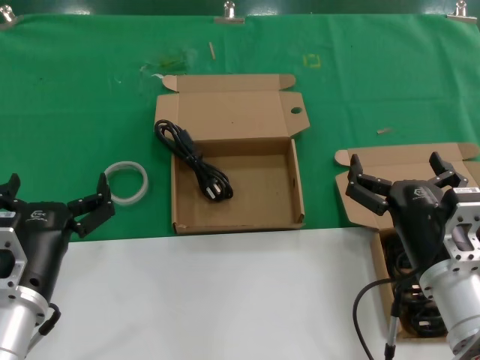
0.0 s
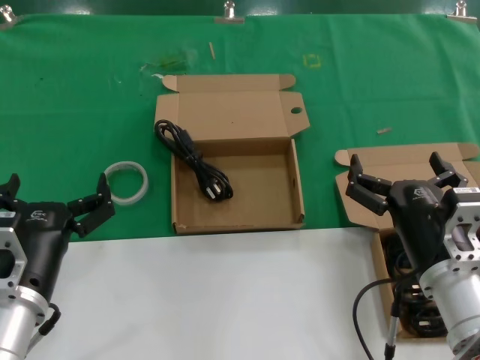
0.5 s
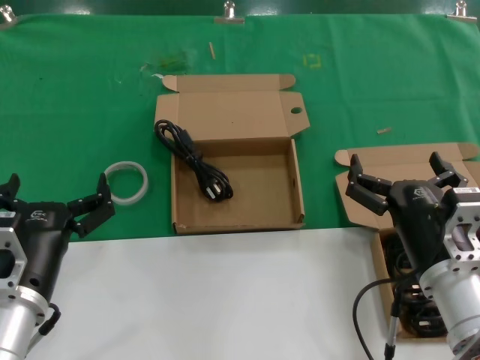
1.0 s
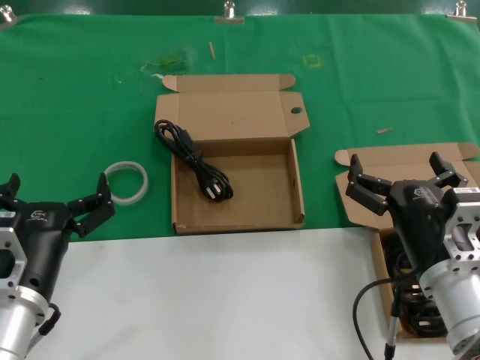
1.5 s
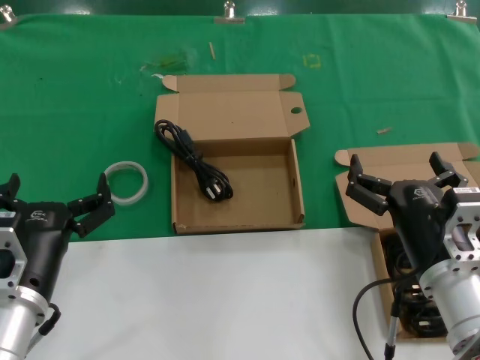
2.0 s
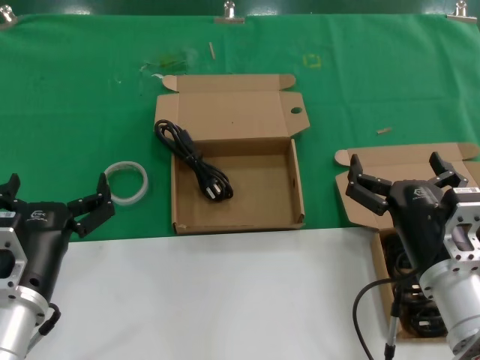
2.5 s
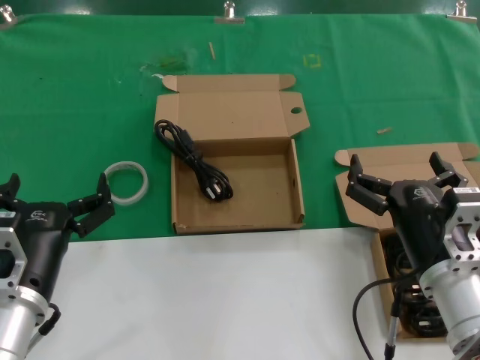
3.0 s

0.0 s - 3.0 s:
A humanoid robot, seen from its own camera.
Task of the whole recording: take the parts from the box containing them and put them into an empty box.
0.0 s - 3.0 s: Both hands stay put.
